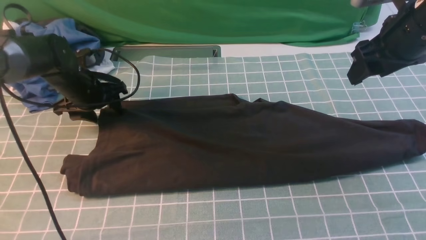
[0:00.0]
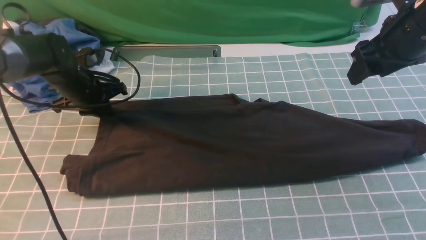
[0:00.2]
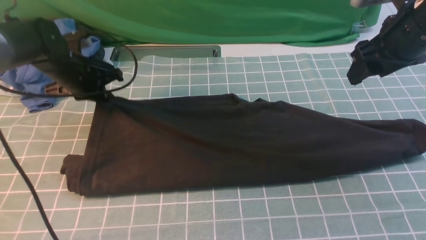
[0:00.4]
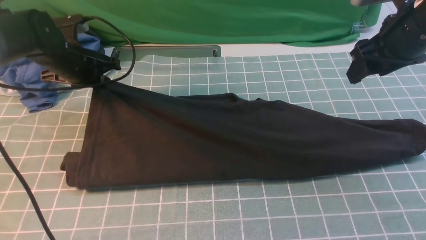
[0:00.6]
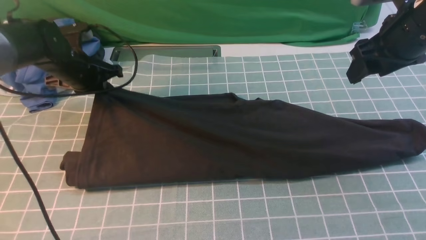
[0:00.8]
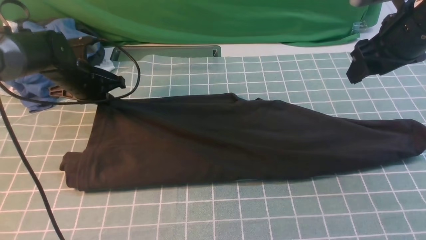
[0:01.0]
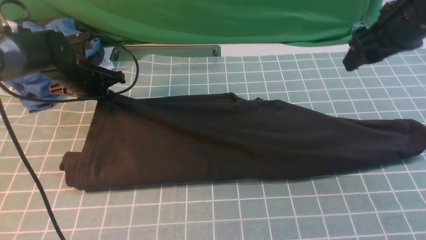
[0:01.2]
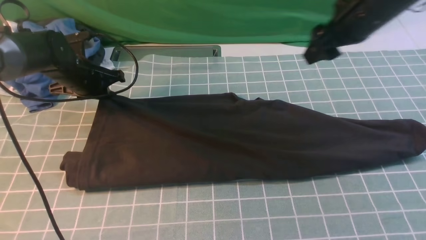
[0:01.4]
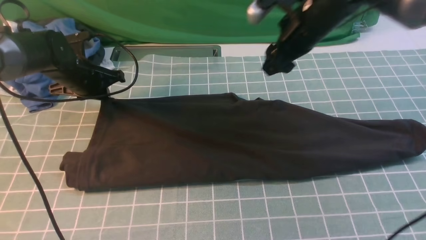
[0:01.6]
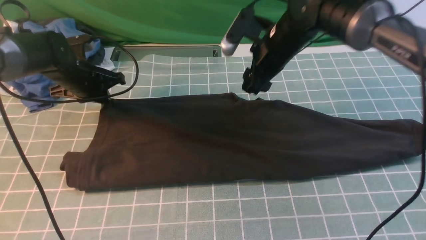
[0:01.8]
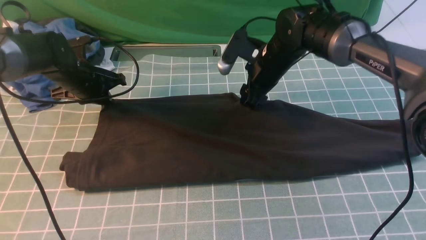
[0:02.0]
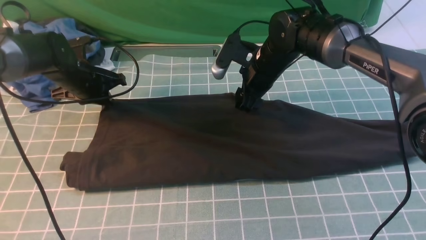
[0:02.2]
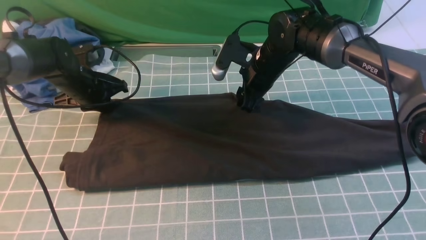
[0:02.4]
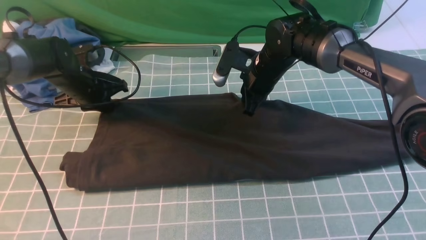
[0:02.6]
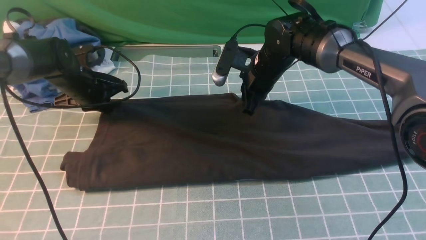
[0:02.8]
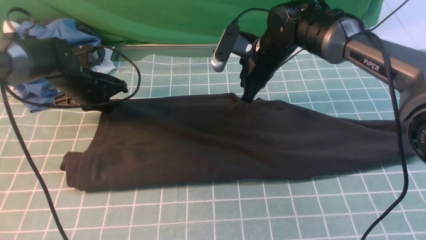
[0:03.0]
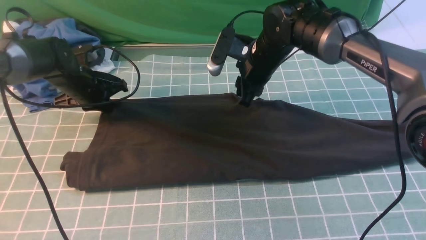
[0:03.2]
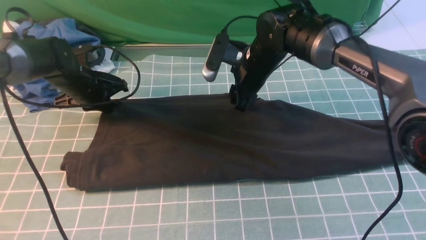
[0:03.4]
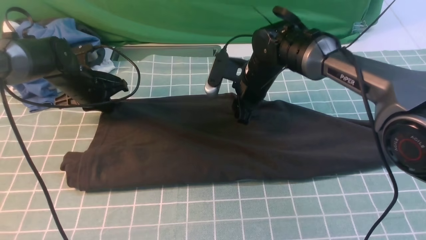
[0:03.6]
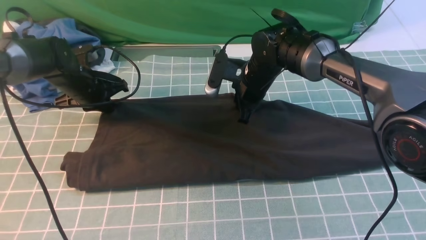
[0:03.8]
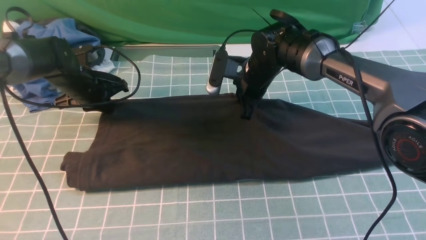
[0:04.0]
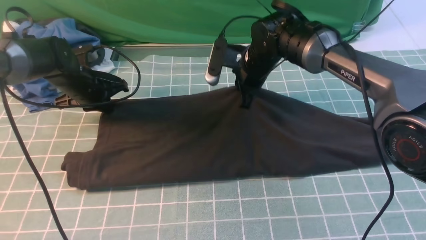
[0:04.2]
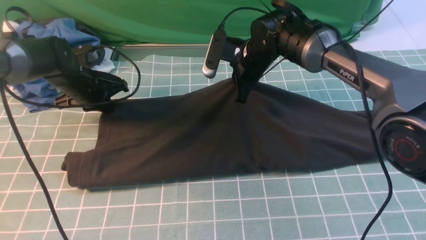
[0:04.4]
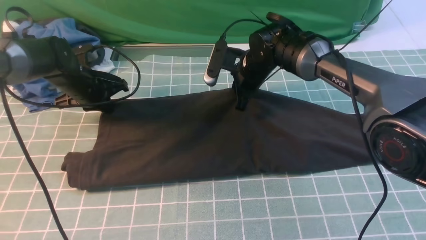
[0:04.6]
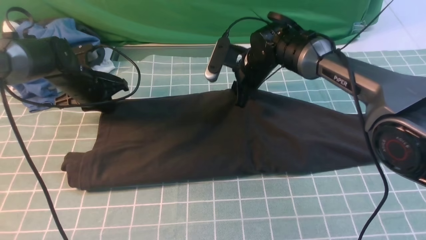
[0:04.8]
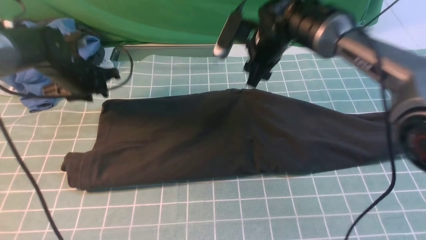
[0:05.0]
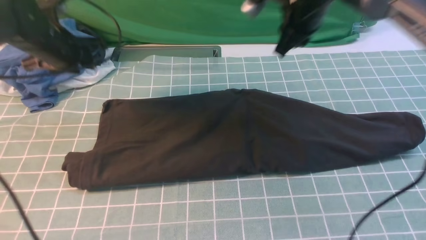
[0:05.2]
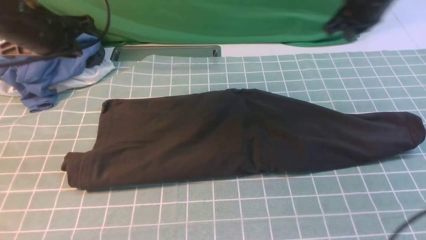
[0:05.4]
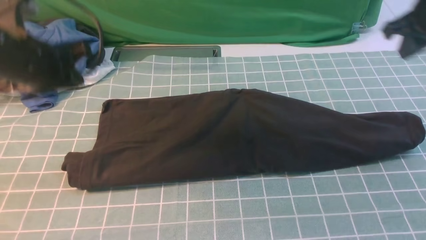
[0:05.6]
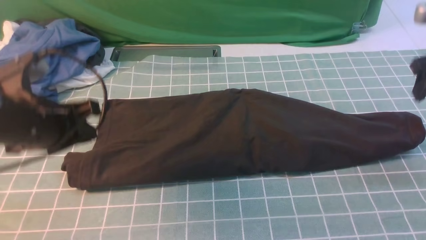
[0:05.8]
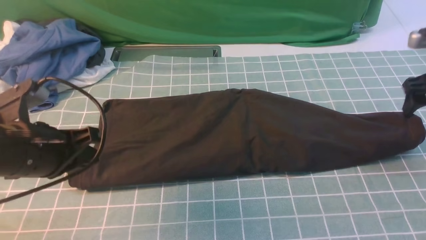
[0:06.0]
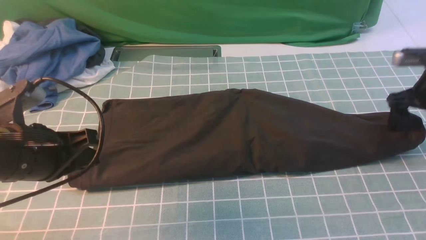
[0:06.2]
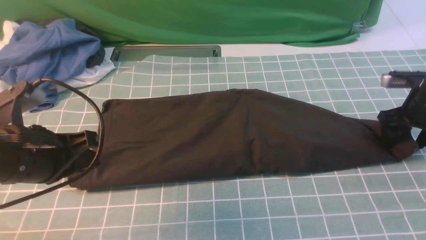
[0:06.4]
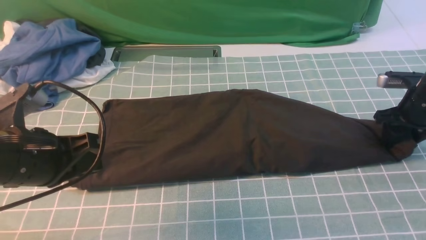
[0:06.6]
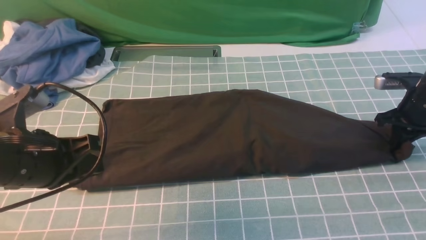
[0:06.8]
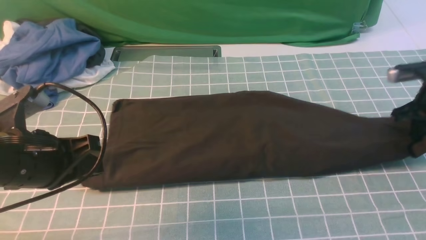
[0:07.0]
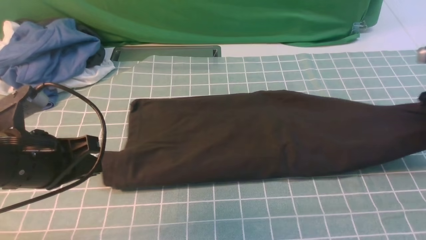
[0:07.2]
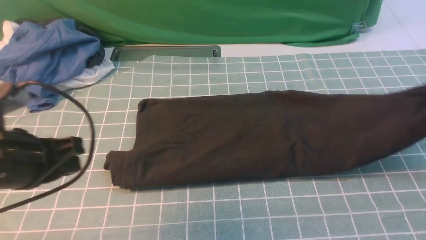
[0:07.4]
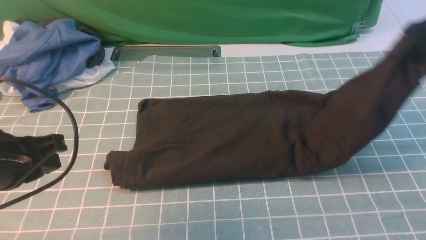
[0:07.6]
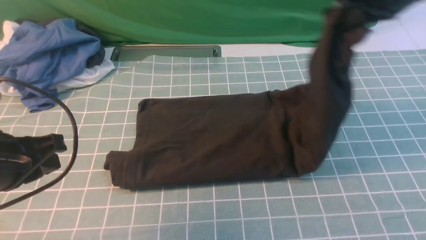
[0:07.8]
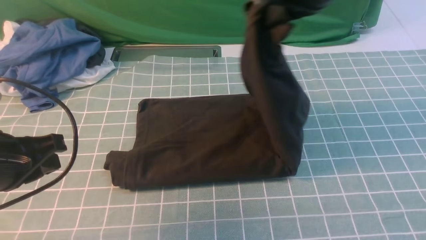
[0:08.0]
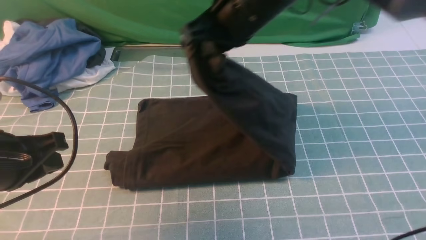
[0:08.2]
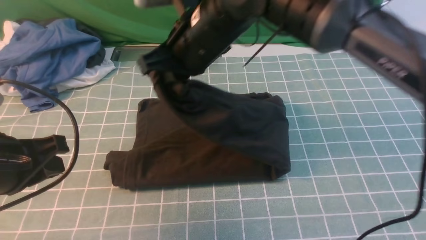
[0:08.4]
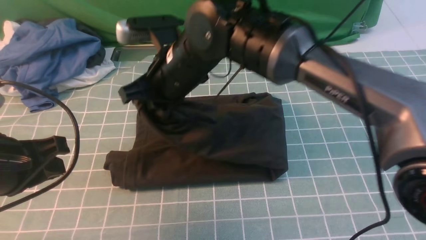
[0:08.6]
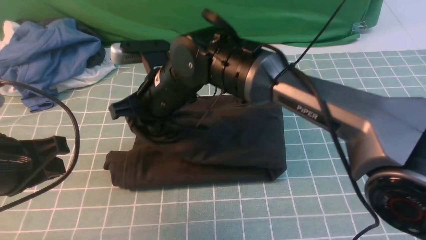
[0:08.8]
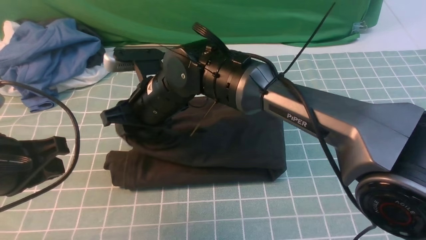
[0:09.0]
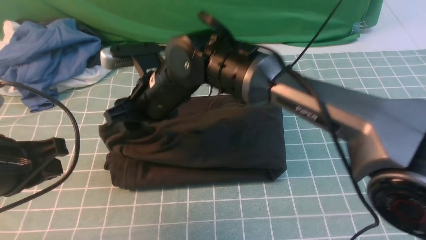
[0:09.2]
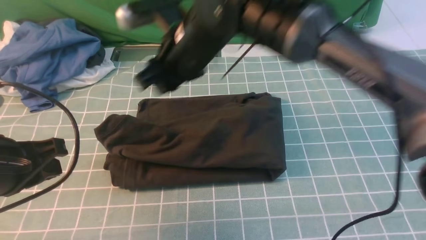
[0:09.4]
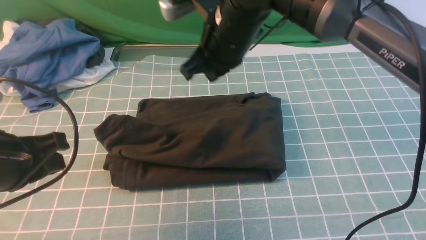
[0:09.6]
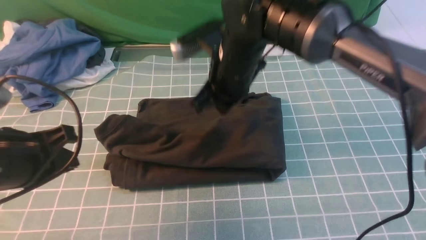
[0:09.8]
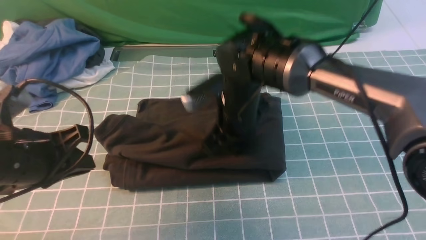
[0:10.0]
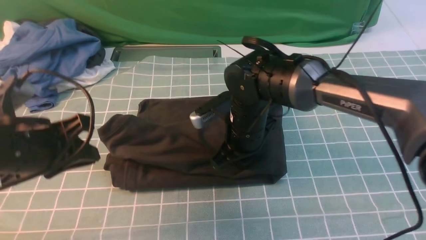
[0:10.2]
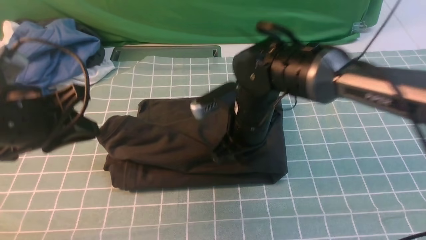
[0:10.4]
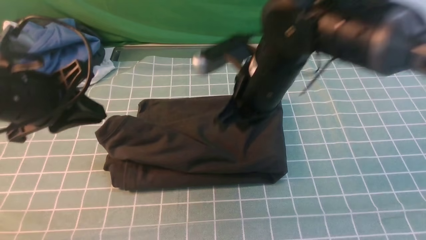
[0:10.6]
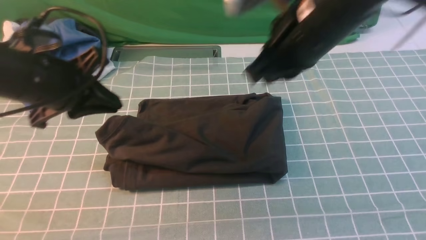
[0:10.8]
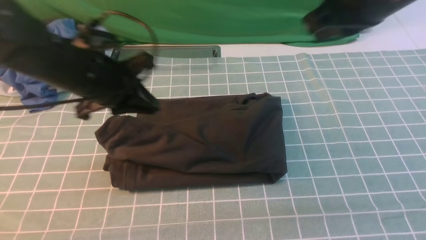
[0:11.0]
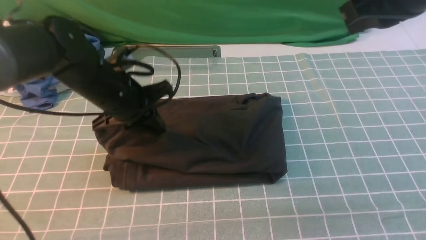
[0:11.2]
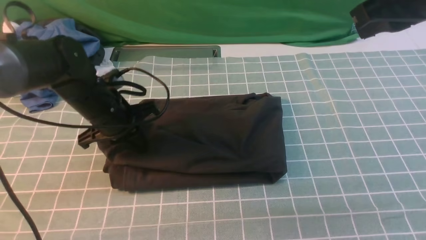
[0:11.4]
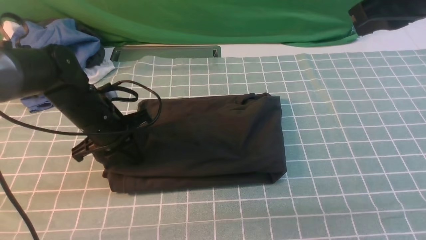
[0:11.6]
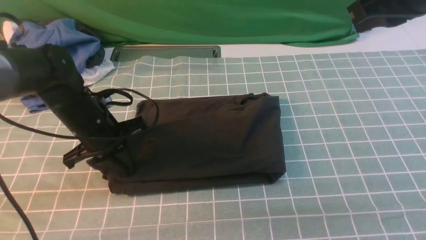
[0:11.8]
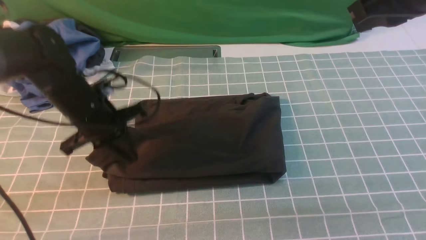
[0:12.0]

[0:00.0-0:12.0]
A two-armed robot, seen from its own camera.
Step, 0:00.0 to 0:06.6: use the right arm to clamp the right edge of the fabric.
Step, 0:06.8 to 0:09.6: use the right arm to drag the right edge of the fabric to the left and folds it over the left edge.
0:00.0 to 0:01.6: The left gripper closes. Meanwhile the right gripper heads to the left and forward, covering about 15 cm.
0:01.6 to 0:03.0: The right gripper heads downward and to the left, covering some 10 cm, and closes.
0:03.0 to 0:04.4: The right gripper opens and closes again.
0:04.4 to 0:06.0: The left gripper heads backward and upward, covering some 25 cm, and opens, then closes once more. Meanwhile the right gripper goes roughly 30 cm to the right, and opens up.
0:06.0 to 0:07.6: The right gripper shifts roughly 15 cm upward and to the left, and closes.
0:07.6 to 0:09.0: The right gripper shifts approximately 40 cm to the left, and opens its fingers.
0:09.0 to 0:10.4: The left gripper heads forward, covering about 5 cm. The right gripper travels to the right by approximately 15 cm, and closes up.
0:10.4 to 0:12.0: The left gripper heads forward and downward, covering roughly 15 cm. Meanwhile the right gripper shifts about 25 cm upward and to the right.

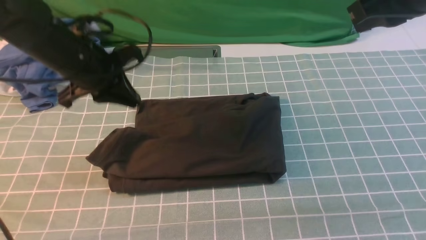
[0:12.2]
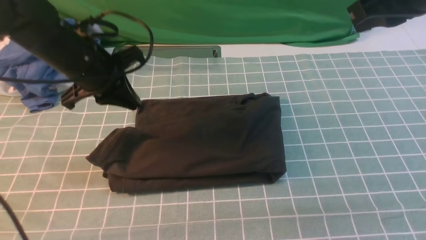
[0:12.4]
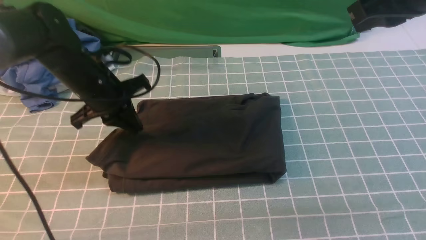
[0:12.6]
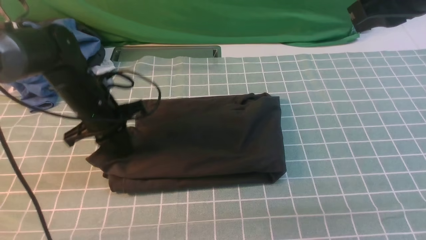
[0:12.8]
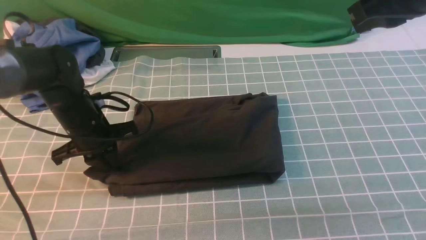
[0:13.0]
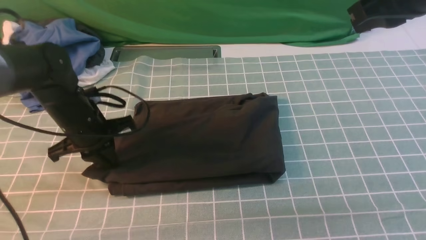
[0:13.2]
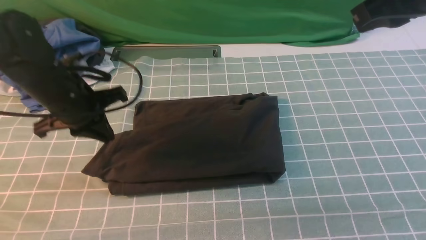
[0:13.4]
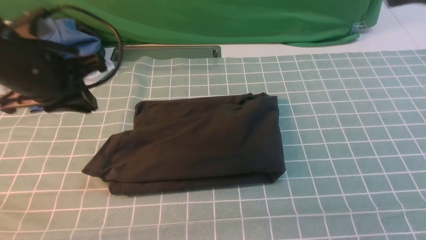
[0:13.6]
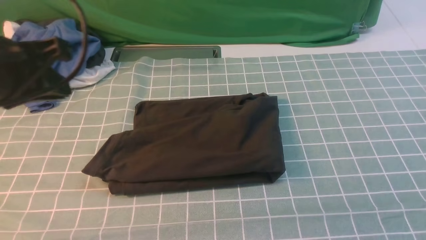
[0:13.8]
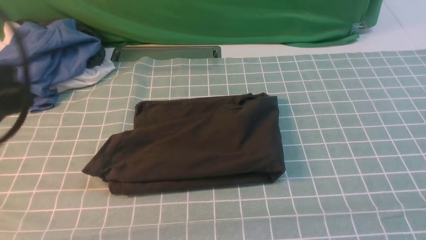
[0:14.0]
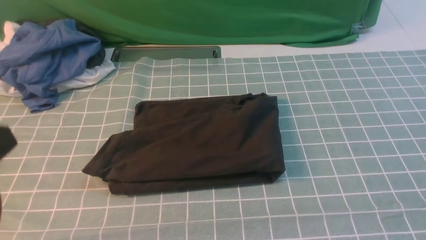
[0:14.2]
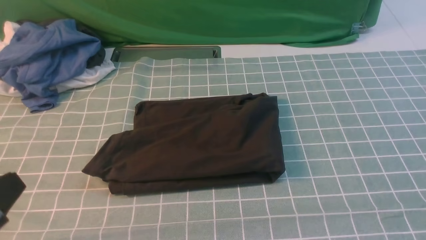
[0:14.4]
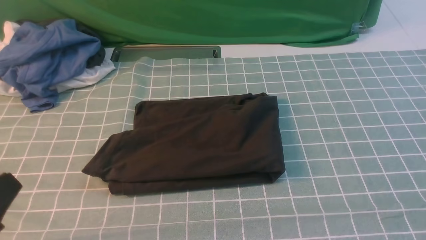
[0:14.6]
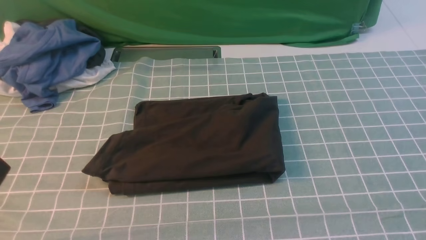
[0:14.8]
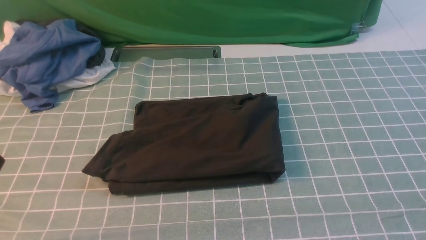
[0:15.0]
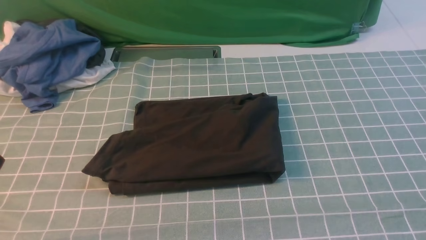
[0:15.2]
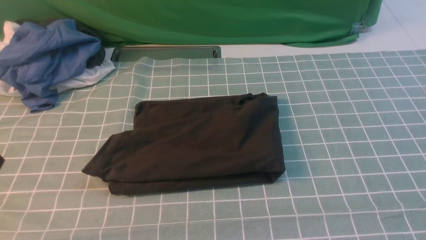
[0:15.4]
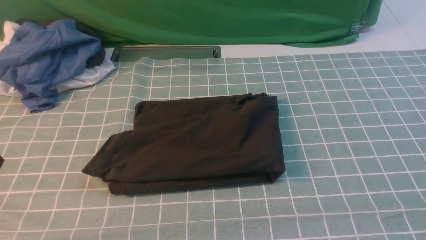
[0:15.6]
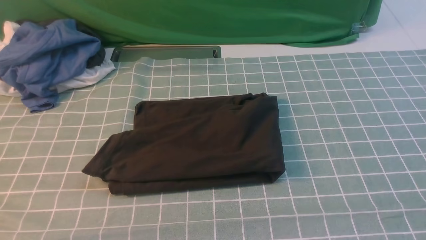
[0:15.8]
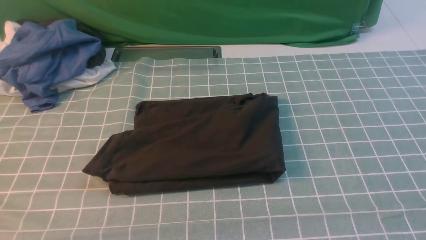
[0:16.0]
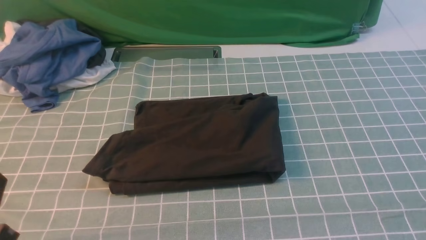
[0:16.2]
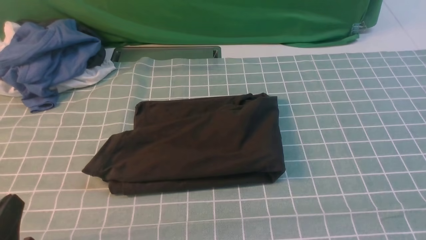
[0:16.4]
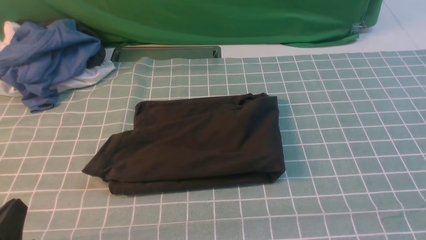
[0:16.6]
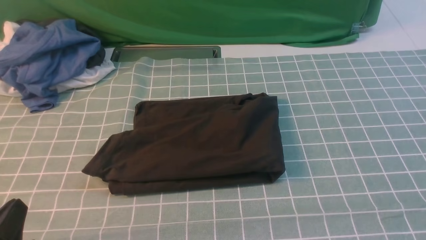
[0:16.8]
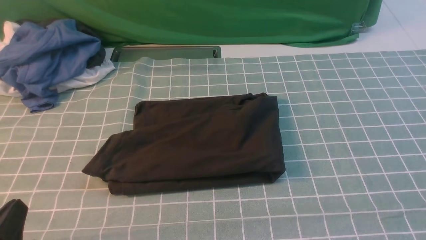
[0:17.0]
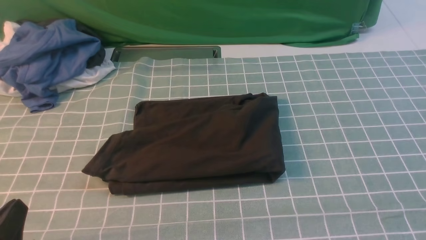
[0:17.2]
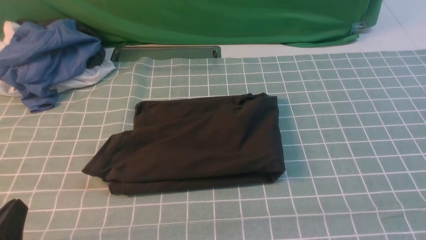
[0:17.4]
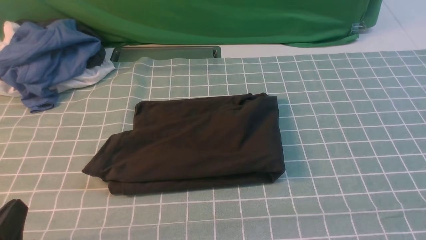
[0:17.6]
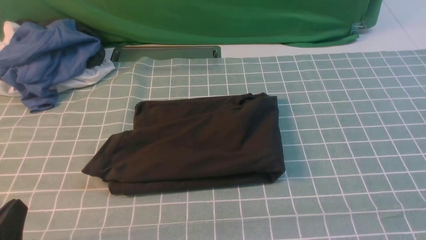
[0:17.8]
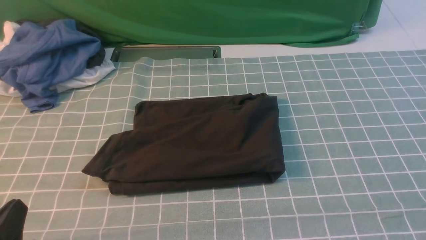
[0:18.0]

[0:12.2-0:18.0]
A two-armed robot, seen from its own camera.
0:12.2 to 0:13.6: Both grippers travel together backward and upward, approximately 10 cm.
0:13.6 to 0:15.0: The left gripper goes roughly 20 cm backward.
0:15.0 to 0:16.6: The left gripper shifts roughly 10 cm downward.
